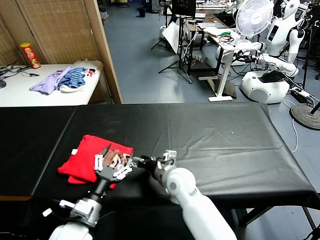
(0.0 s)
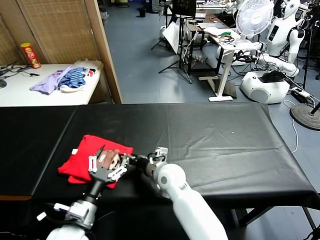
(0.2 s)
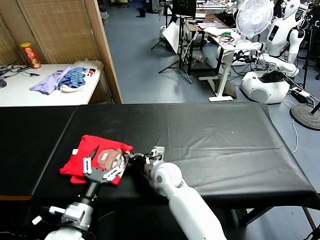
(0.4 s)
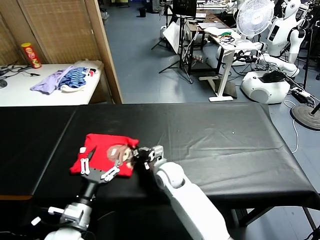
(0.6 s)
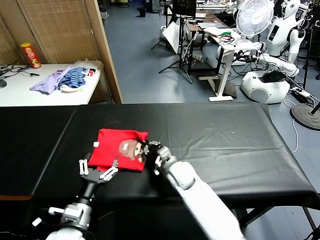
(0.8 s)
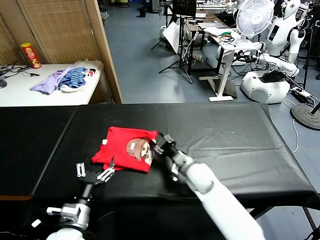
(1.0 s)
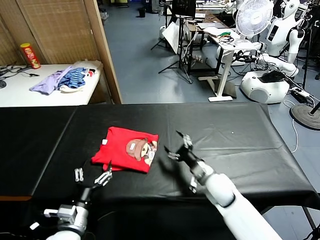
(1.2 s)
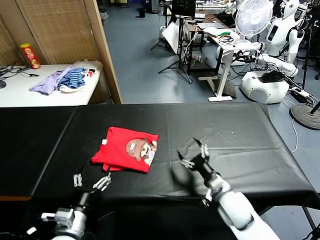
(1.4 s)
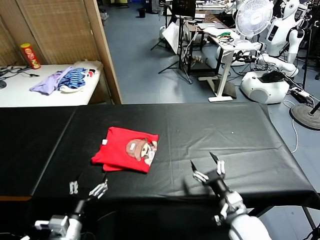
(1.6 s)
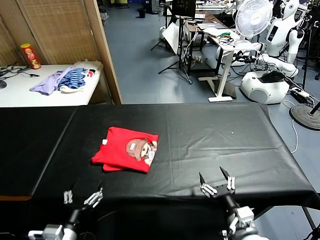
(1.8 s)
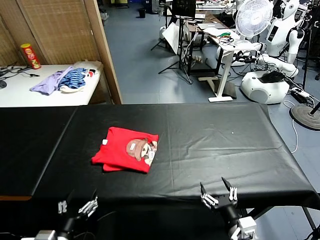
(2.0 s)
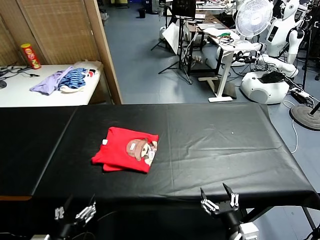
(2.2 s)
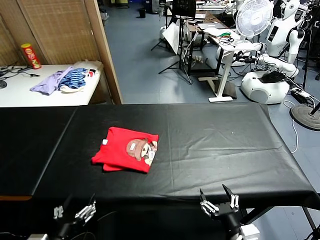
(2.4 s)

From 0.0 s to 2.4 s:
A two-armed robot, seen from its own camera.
Task of the whole recording: fold and organize the clothes.
Step, from 0.0 s to 1.0 s: Drag the clothes to the center of the table.
From 0.0 s to 1.2 s: The right gripper goes some 10 cm to the right, and closes, then reopens.
From 1.2 s to 2.4 s: The right gripper is displaced backward by approximately 25 cm; the left gripper is displaced backward and upward by roughly 10 cm.
